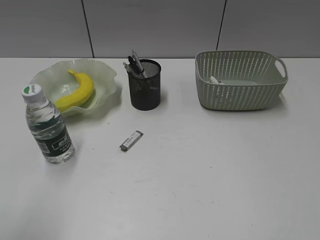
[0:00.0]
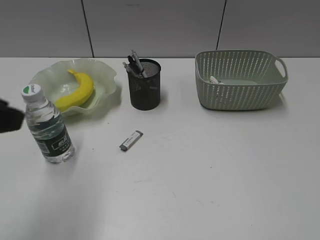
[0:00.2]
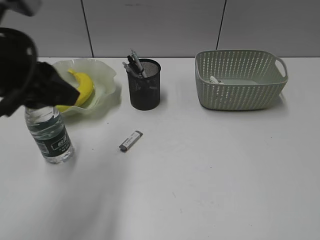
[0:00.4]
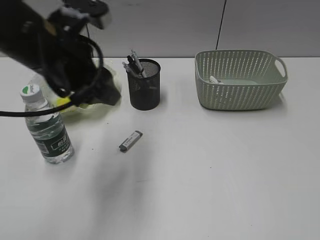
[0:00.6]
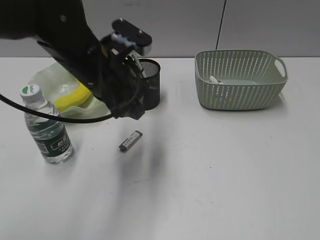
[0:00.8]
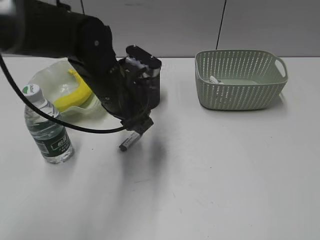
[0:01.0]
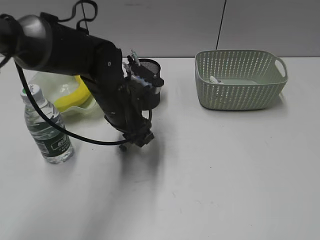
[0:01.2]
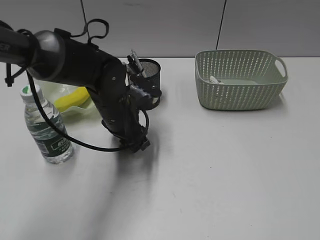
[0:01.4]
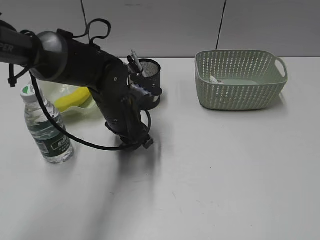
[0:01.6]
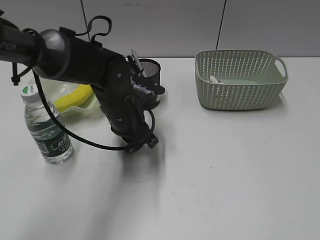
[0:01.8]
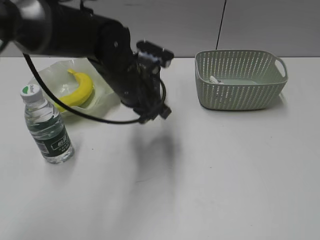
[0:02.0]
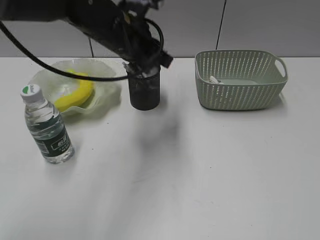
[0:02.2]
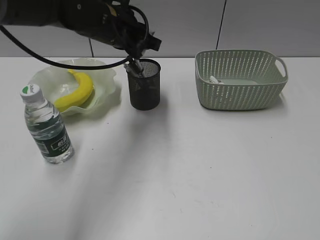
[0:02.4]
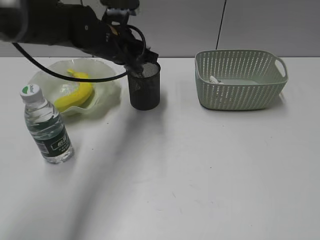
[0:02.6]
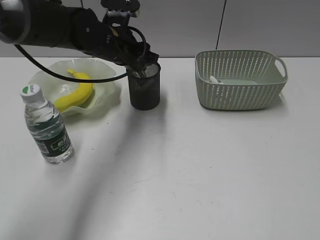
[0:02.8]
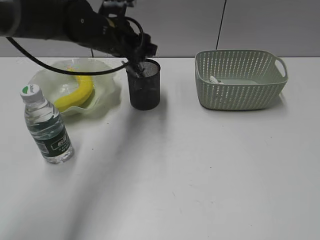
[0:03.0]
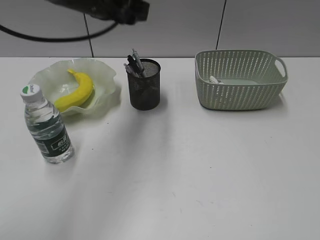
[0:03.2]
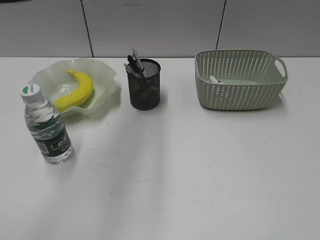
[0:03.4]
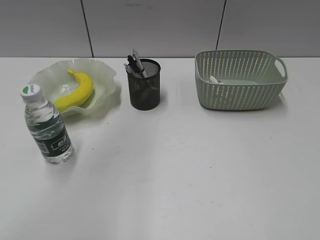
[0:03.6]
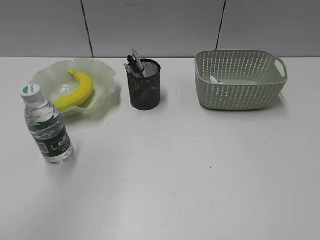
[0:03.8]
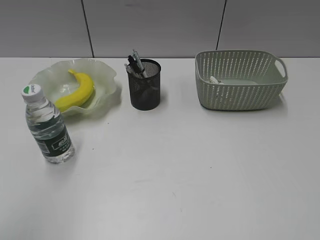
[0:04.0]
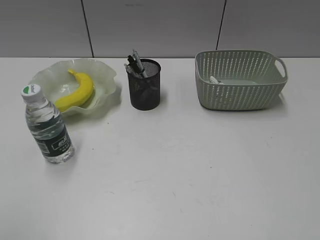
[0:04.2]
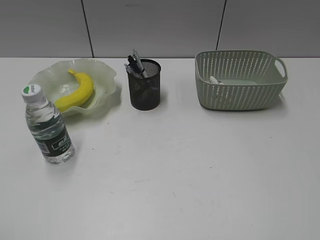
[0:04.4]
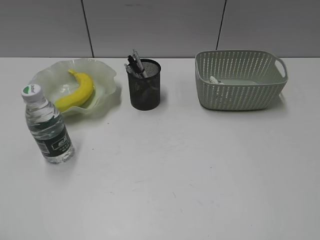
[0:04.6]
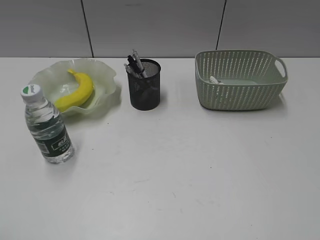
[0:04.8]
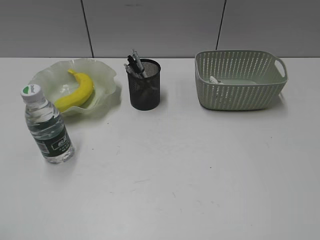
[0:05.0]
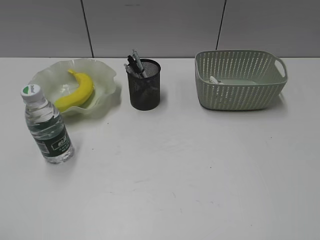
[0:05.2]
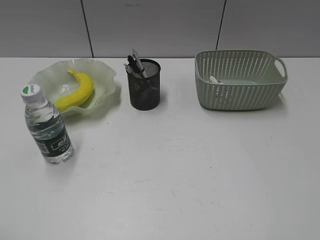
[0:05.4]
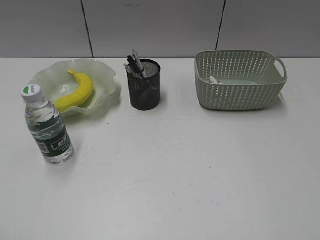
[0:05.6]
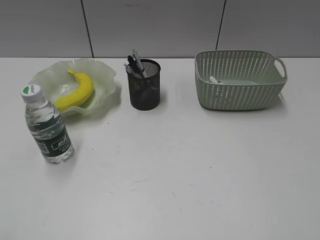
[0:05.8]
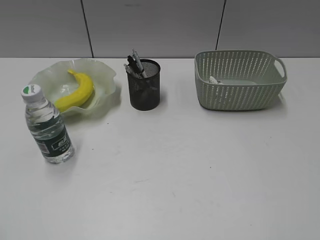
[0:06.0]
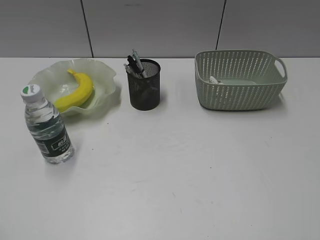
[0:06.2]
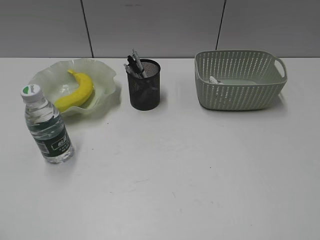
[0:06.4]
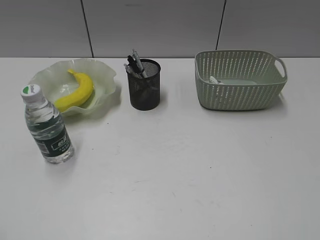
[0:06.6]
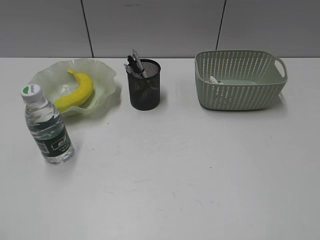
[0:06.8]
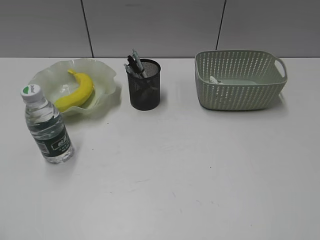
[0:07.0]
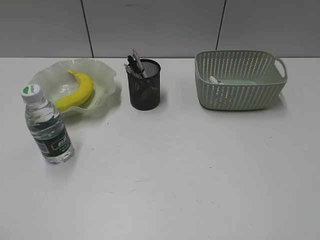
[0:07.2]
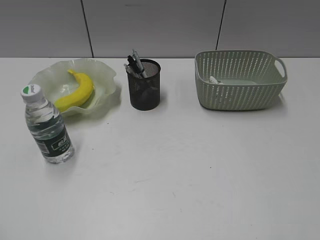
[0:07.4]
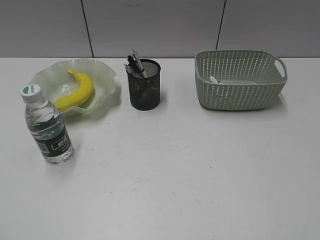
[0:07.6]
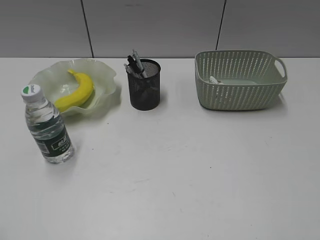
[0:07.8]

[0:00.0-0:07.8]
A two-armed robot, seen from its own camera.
Step, 0:01.8 to 0:02.8: Place the eraser in pen holder with left gripper.
0:00.0 to 0:01.6: The left gripper goes about 40 cm forward, to the right and downward.
0:01.6 to 0:03.2: The left gripper moves up and down over some 15 cm, changing direction 2 times, and closes and opens again.
0:03.2 to 0:04.6: The left gripper heads backward and to the left, covering some 50 cm.
0:06.2 to 0:07.8: The two grippers keep their place.
